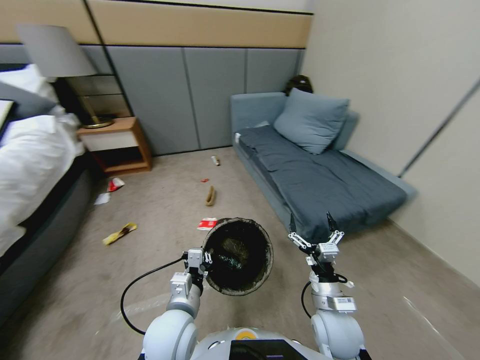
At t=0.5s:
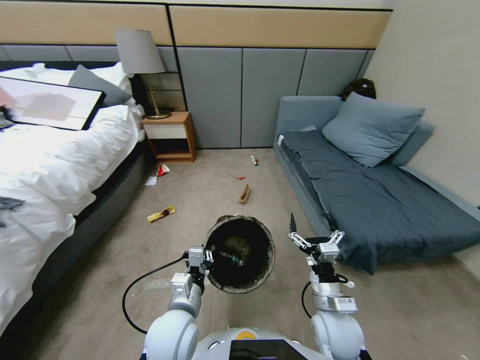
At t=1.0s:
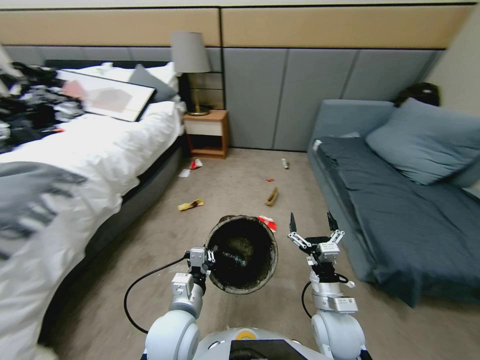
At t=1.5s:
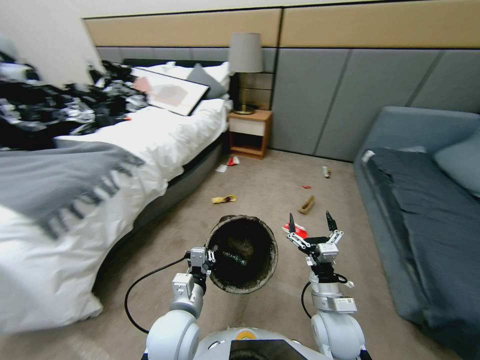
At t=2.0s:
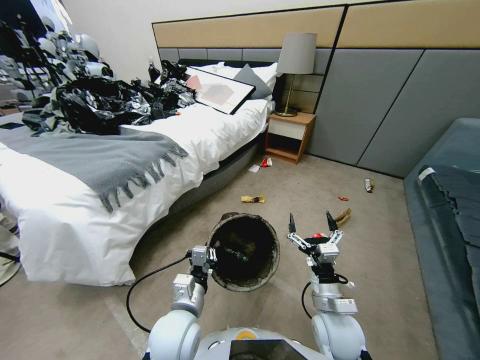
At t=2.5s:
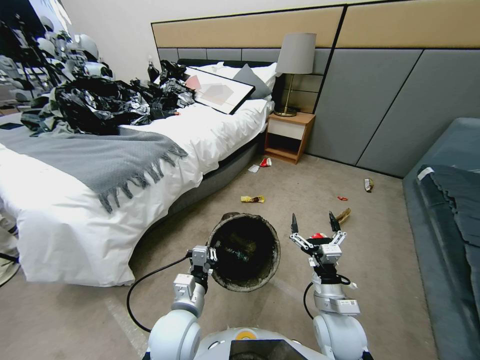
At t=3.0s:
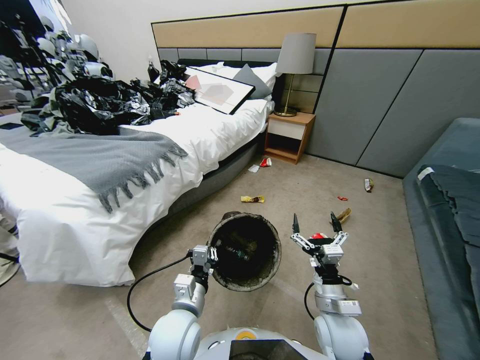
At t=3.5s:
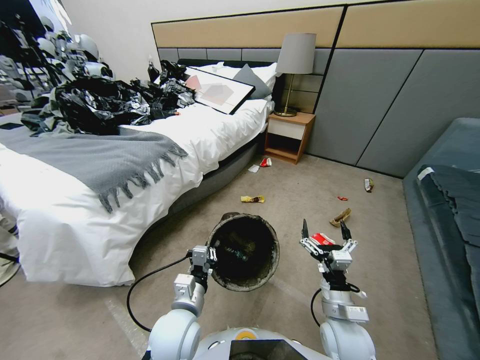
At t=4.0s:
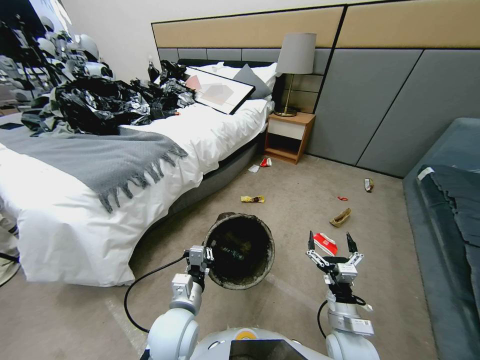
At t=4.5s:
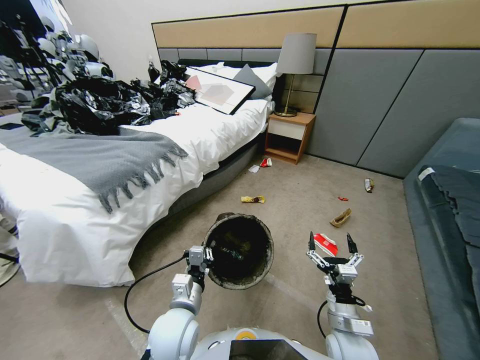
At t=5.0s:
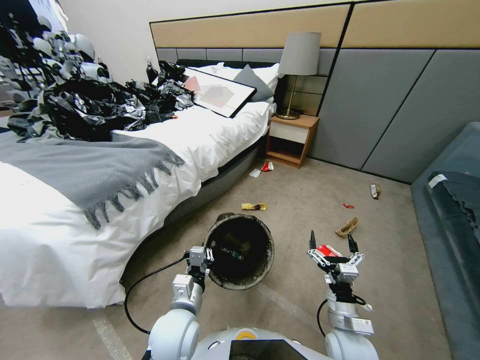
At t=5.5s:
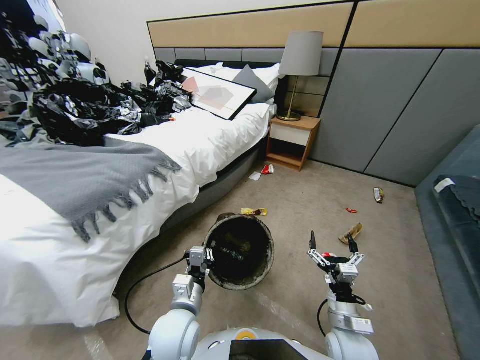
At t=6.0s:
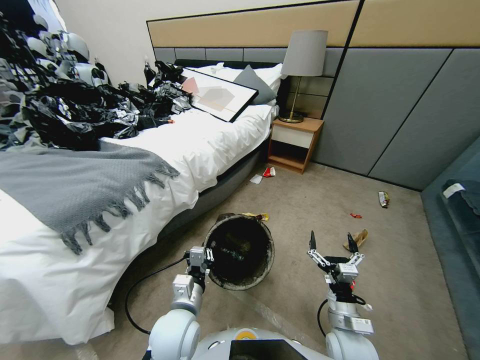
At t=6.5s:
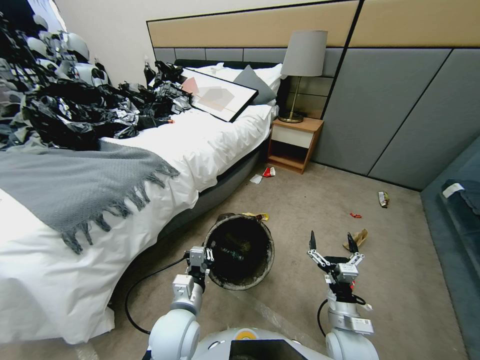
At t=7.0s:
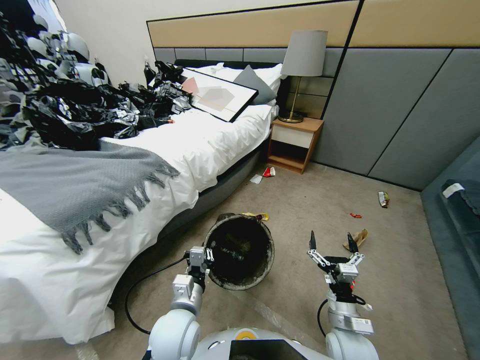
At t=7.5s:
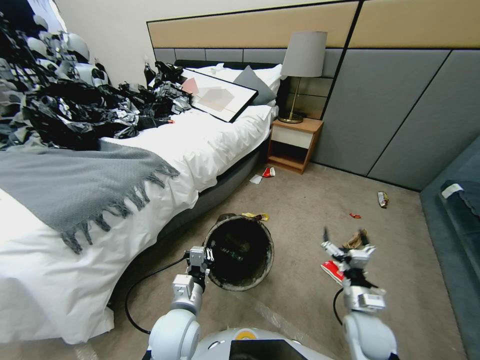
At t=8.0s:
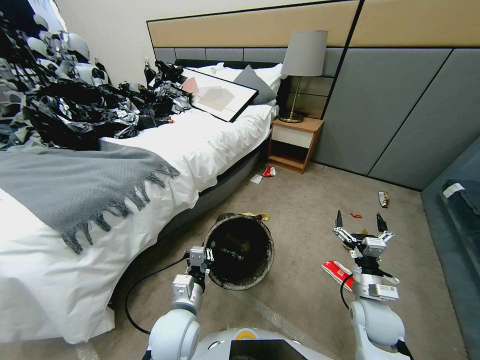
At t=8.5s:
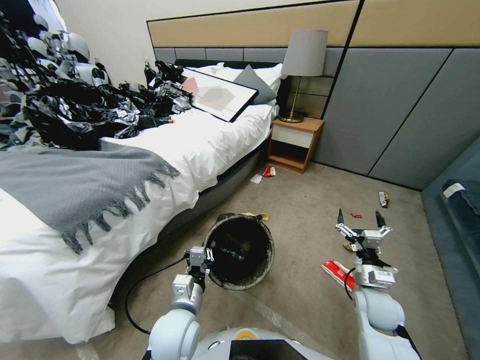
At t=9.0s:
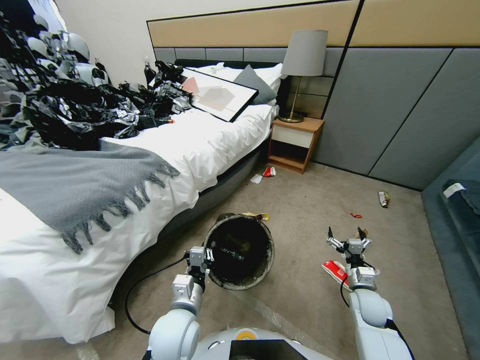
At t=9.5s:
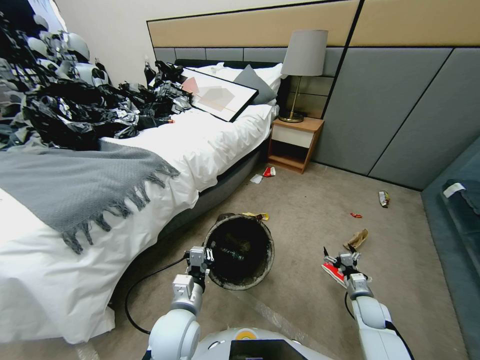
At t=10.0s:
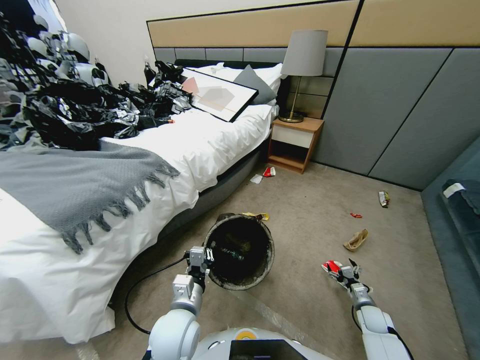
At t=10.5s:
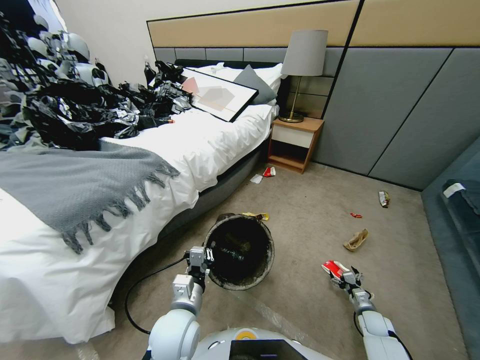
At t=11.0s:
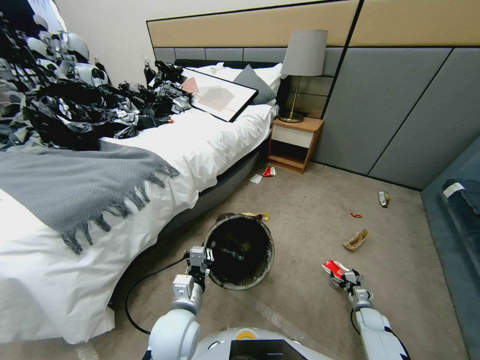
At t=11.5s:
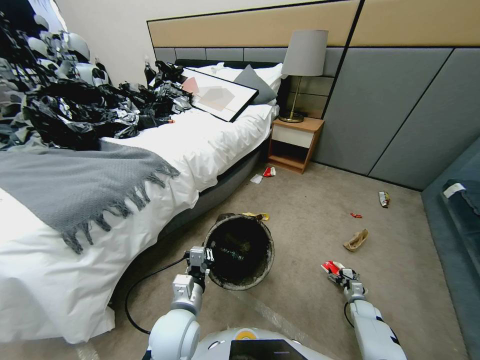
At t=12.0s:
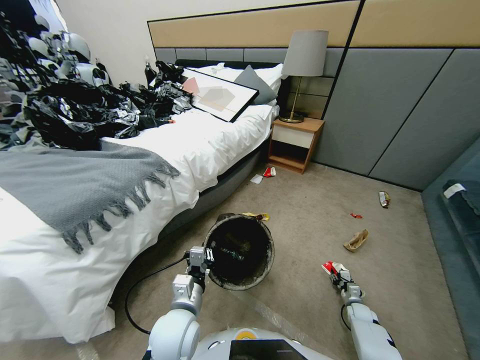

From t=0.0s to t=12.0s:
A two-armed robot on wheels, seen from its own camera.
Task of the whole recording: Pick up the trash bin, then pick up the garbage from the floor and place it into the trash bin.
From t=2.0s to t=4.0s: The right gripper moves about 5 cm.
From t=6.0s to t=8.0s: The right gripper moves to the right and forward, some 10 cm.
From t=8.0s to t=10.0s: The right gripper shifts about 25 cm downward and to the right.
From t=10.0s to t=12.0s: The right gripper goes about 10 cm downward, and closes up.

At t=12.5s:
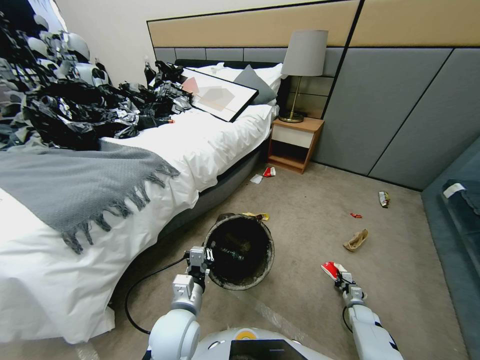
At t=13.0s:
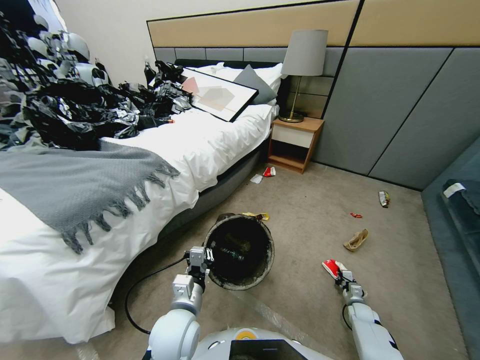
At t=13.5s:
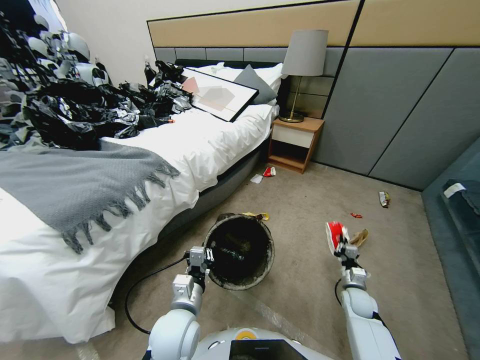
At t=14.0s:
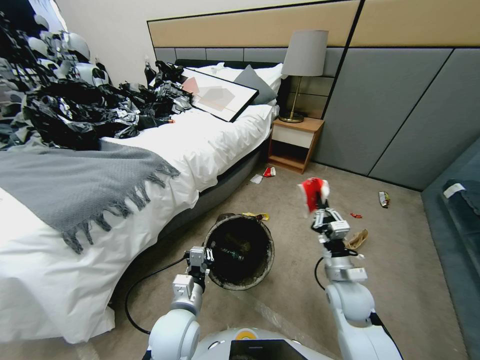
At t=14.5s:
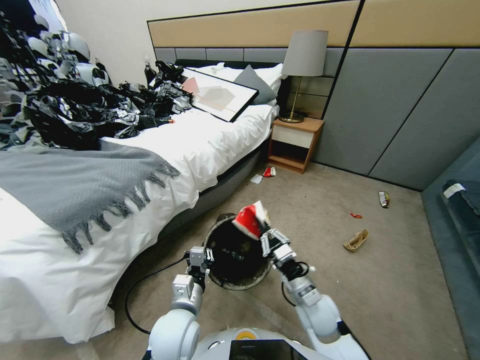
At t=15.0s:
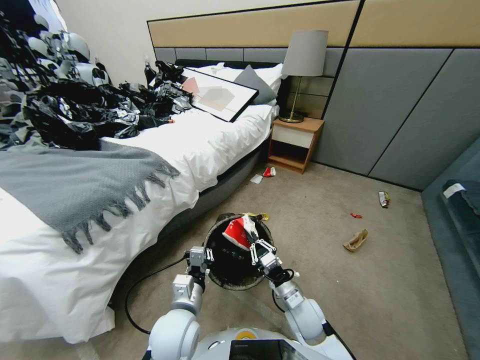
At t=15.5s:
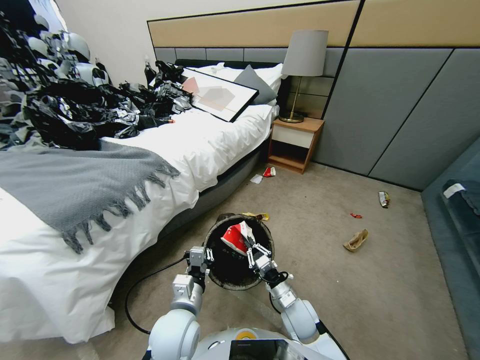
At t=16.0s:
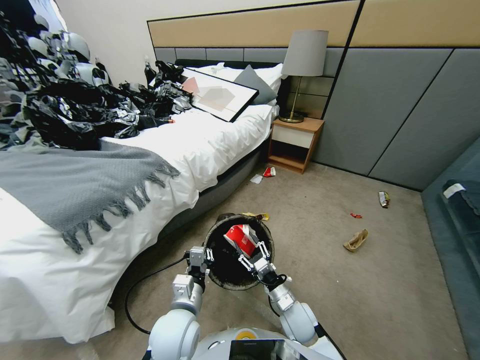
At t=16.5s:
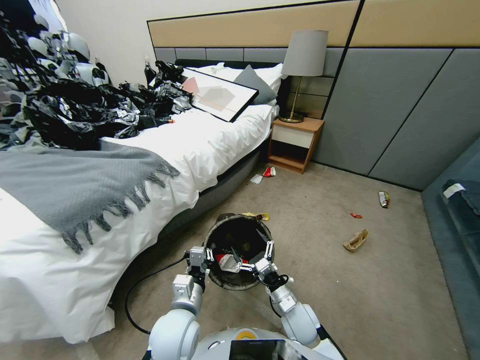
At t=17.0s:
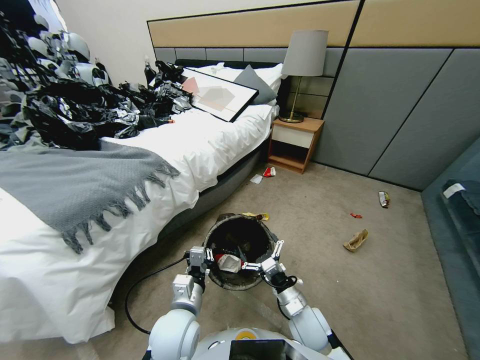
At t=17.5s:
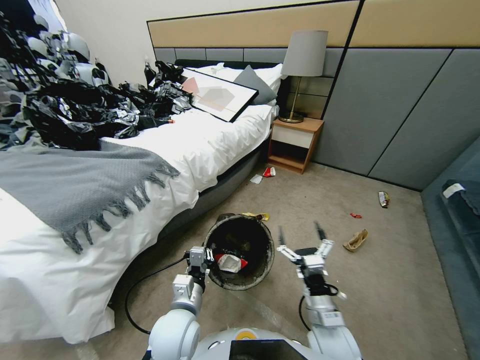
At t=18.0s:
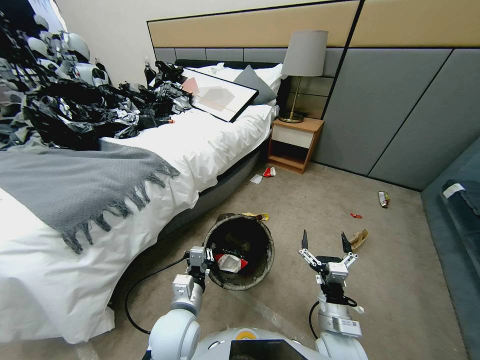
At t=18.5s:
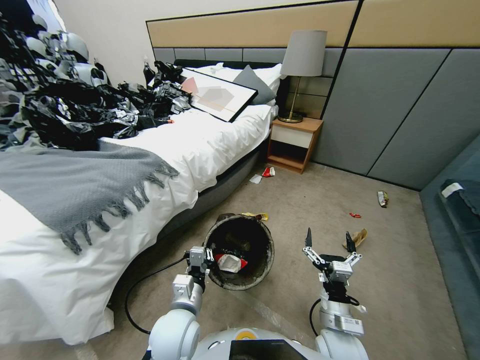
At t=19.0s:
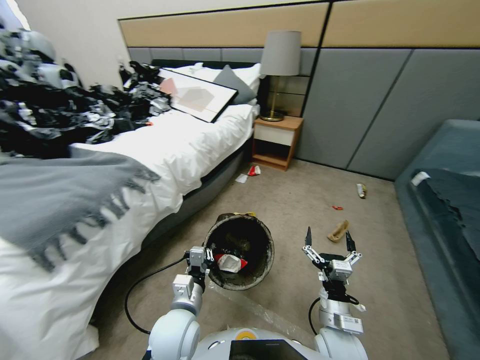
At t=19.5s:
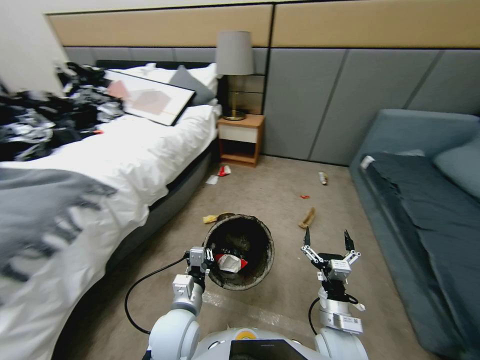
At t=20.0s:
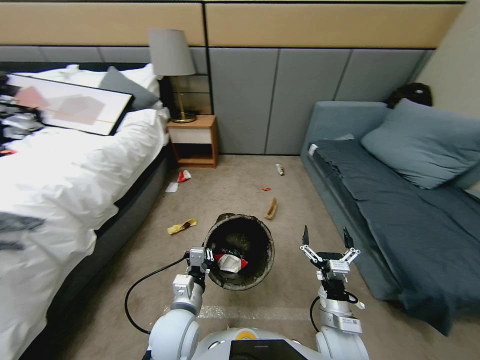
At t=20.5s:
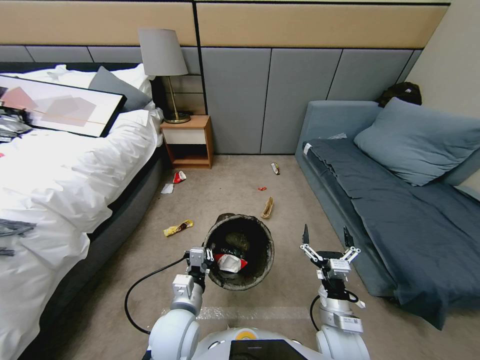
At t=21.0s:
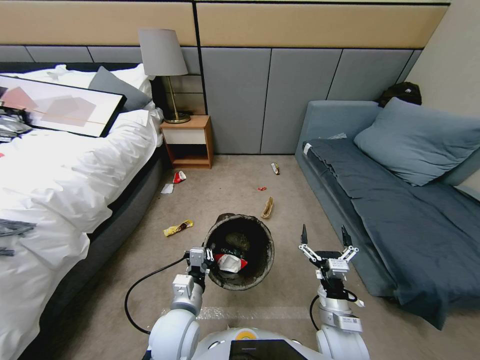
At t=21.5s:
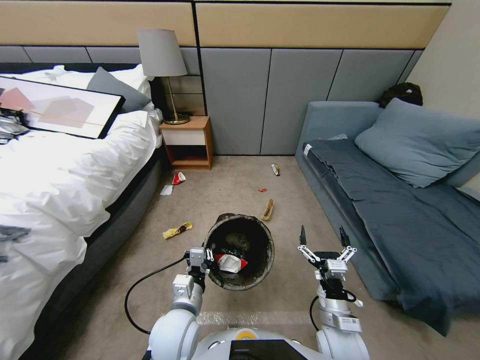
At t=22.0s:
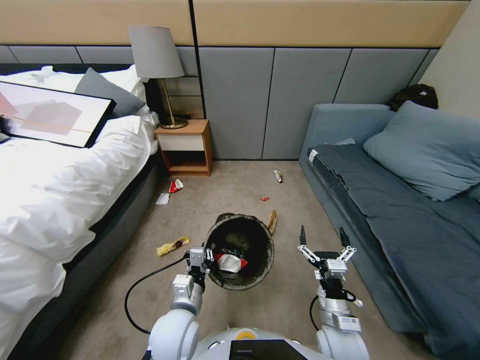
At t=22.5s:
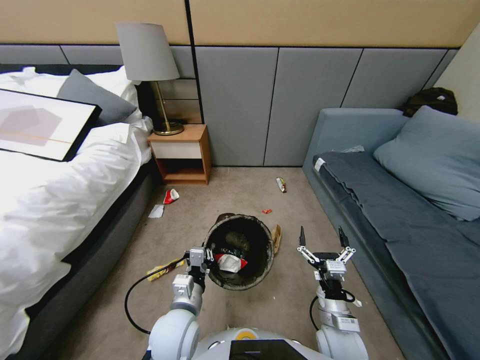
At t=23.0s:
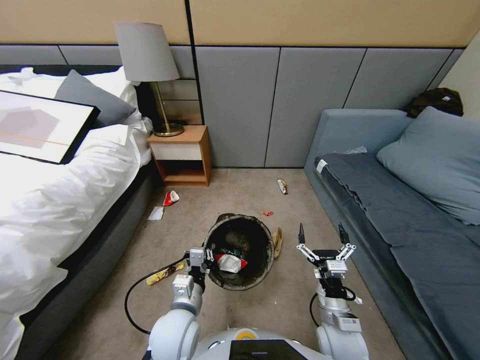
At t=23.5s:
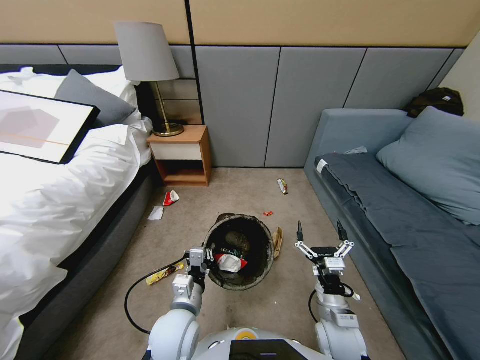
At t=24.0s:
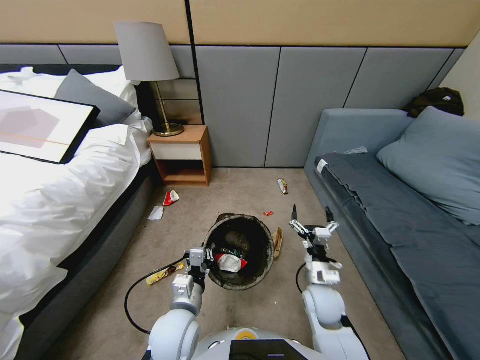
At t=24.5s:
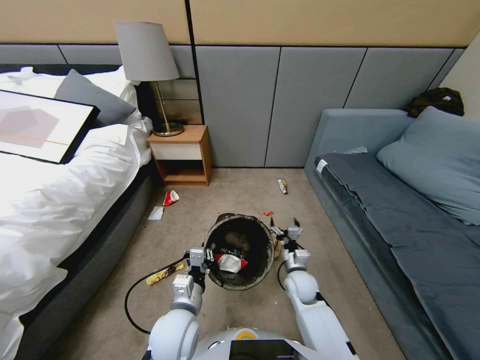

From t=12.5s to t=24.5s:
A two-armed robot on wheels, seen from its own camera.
Task of the whole recording: Pick up the trash bin, then pick up the garbage from the floor and place it into the trash bin.
From t=12.5s to t=14.5s: The right gripper travels to the left and upward by approximately 40 cm.
From t=14.5s to t=16.5s: The right gripper moves roughly 5 cm, and opens its fingers.
From t=16.5s to t=18.5s: The right gripper moves backward, upward and to the right, approximately 10 cm.
From t=22.5s to t=24.5s: The right gripper goes some 20 cm forward and downward.

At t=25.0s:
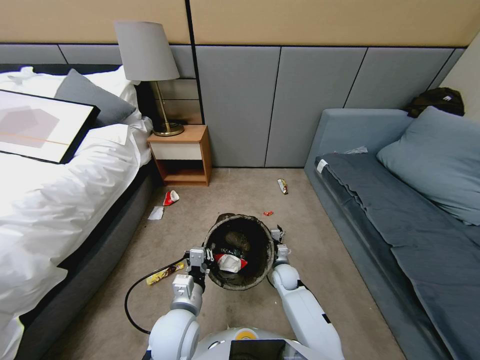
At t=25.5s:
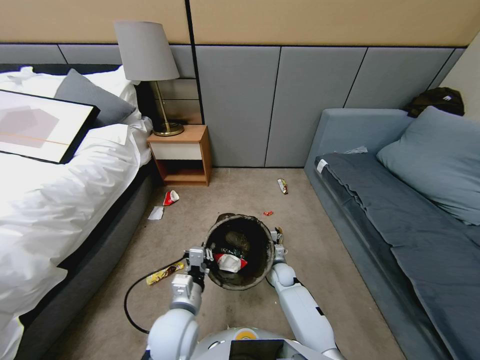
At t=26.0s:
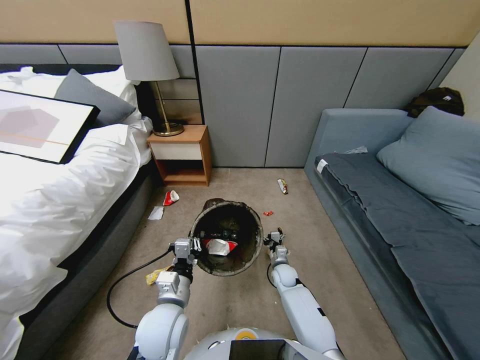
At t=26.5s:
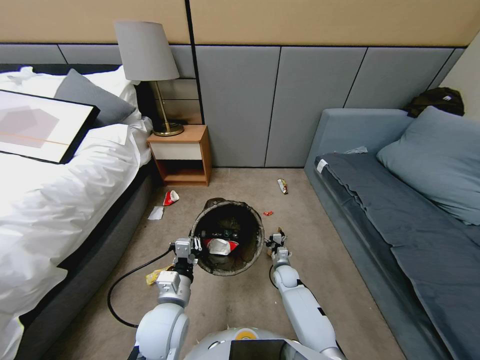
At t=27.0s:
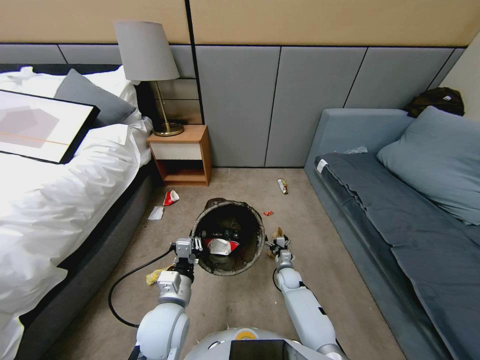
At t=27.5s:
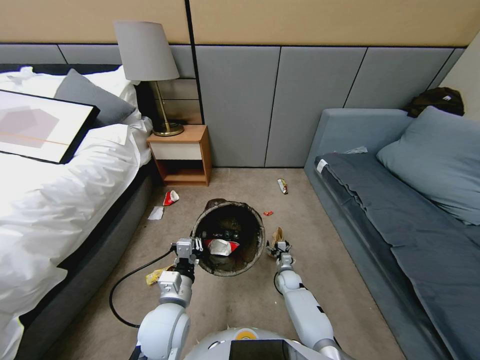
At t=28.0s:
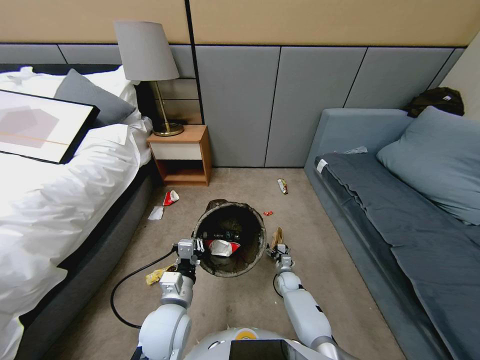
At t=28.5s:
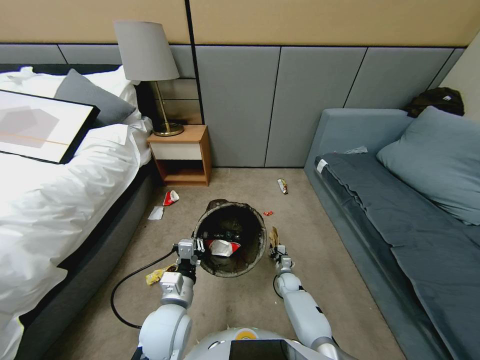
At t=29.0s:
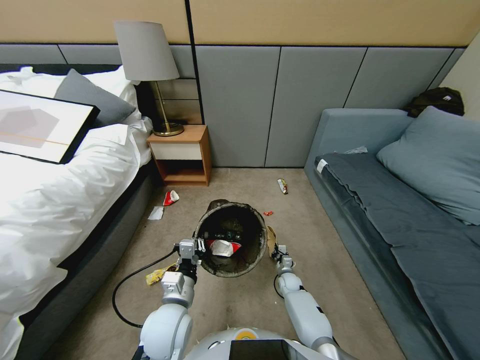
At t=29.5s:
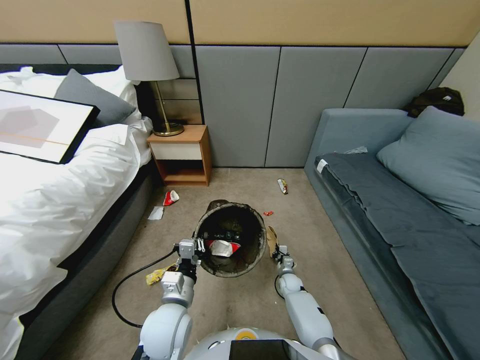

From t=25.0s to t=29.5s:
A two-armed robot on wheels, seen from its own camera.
Task of the whole recording: Pick up the trash bin, then pick up the garbage from the floor and place it into the trash bin.
From t=25.0s to t=27.0s: The right gripper is displaced downward by about 5 cm.
From t=27.0s to t=29.5s: The right gripper closes.
